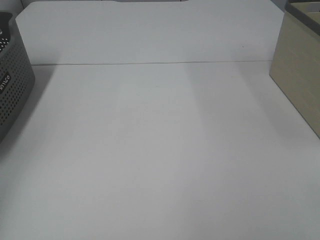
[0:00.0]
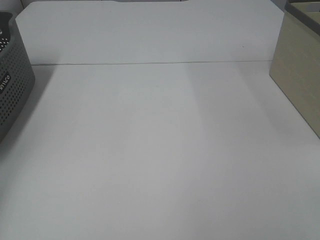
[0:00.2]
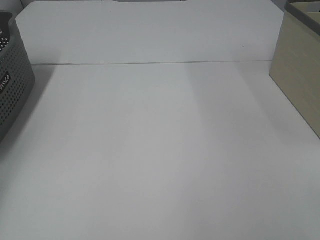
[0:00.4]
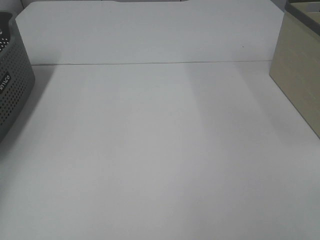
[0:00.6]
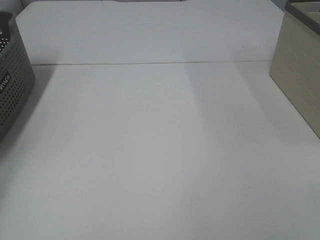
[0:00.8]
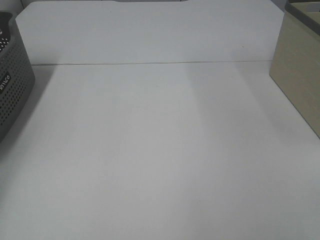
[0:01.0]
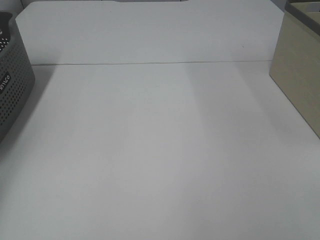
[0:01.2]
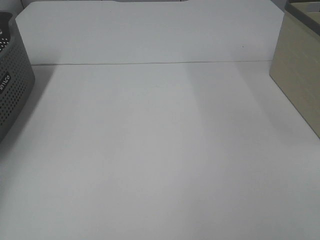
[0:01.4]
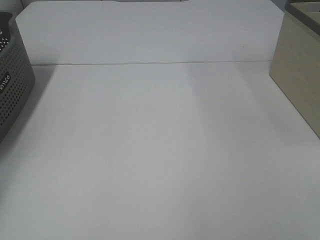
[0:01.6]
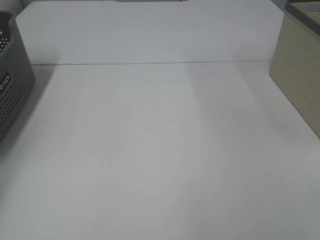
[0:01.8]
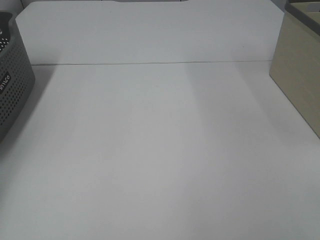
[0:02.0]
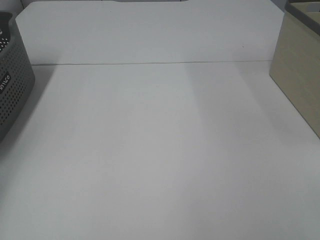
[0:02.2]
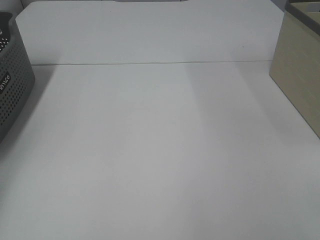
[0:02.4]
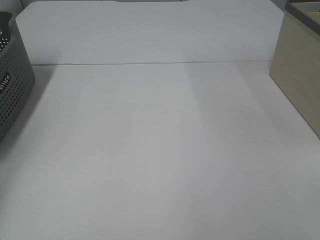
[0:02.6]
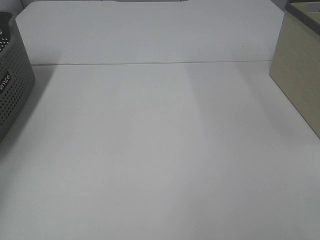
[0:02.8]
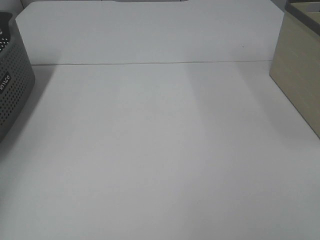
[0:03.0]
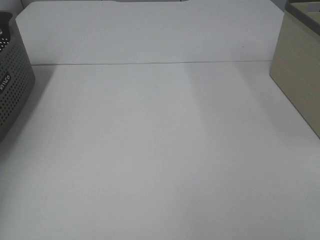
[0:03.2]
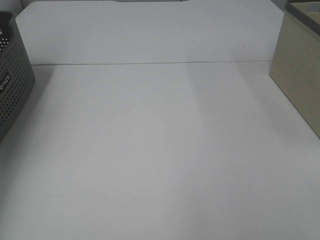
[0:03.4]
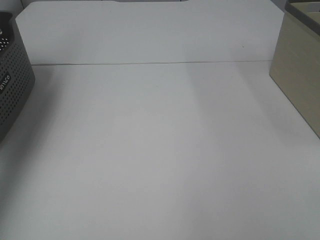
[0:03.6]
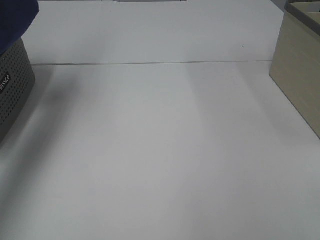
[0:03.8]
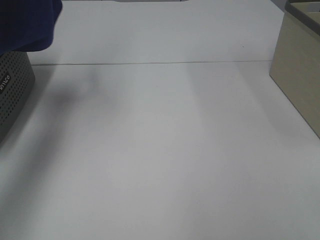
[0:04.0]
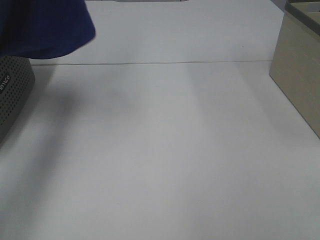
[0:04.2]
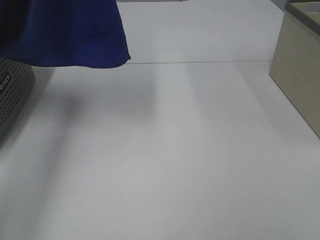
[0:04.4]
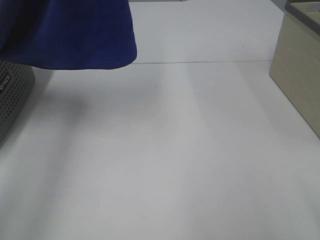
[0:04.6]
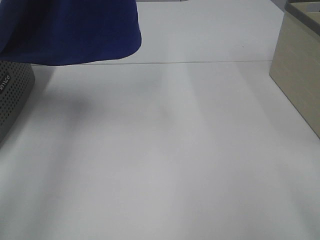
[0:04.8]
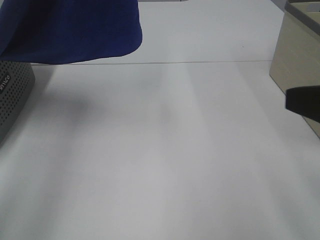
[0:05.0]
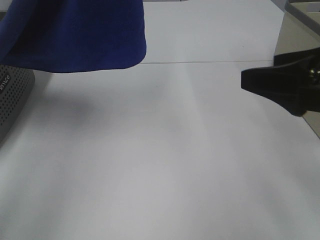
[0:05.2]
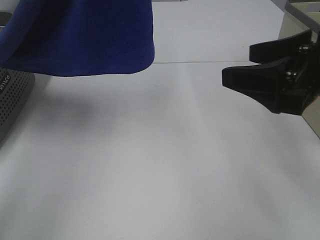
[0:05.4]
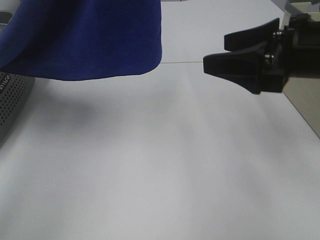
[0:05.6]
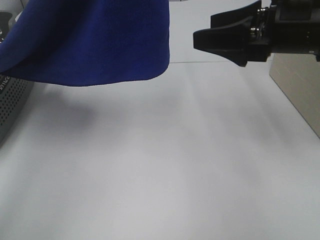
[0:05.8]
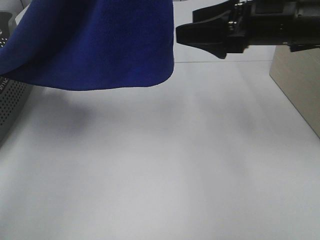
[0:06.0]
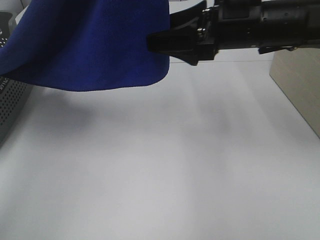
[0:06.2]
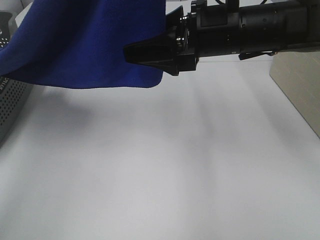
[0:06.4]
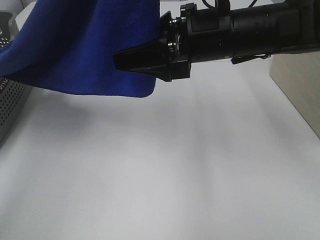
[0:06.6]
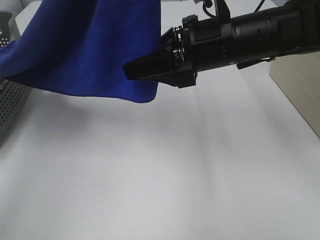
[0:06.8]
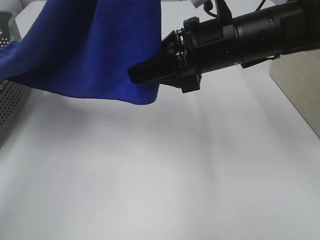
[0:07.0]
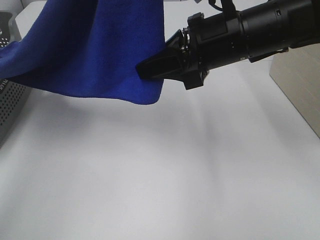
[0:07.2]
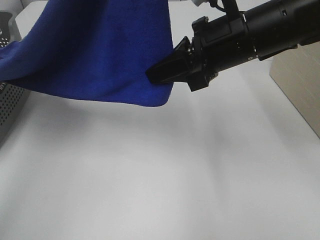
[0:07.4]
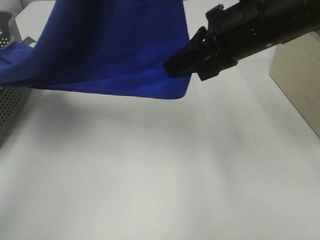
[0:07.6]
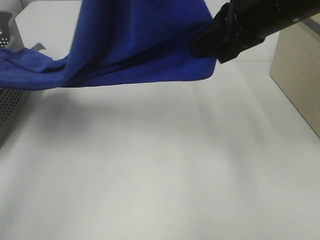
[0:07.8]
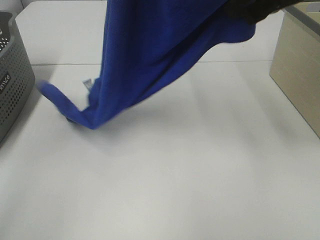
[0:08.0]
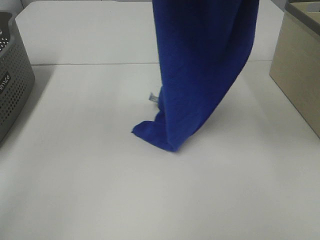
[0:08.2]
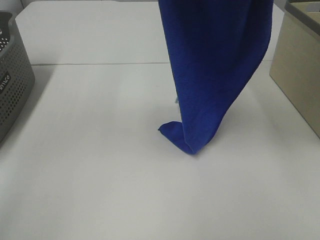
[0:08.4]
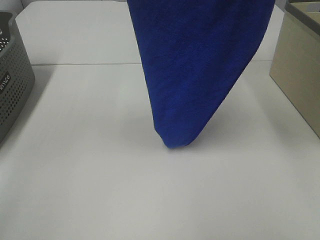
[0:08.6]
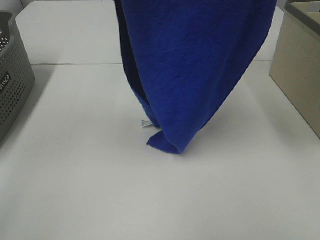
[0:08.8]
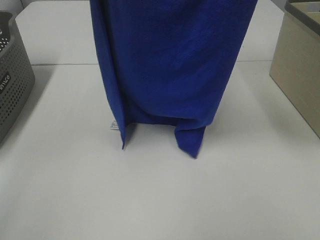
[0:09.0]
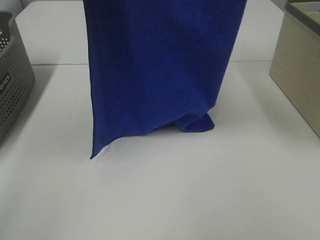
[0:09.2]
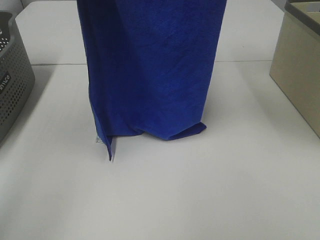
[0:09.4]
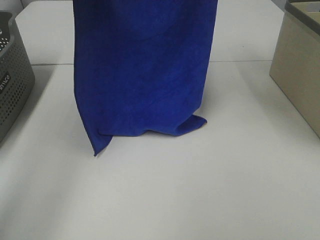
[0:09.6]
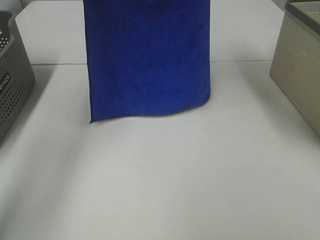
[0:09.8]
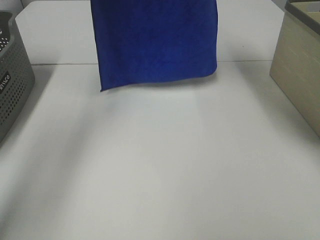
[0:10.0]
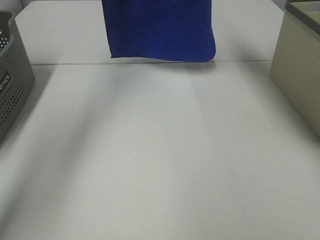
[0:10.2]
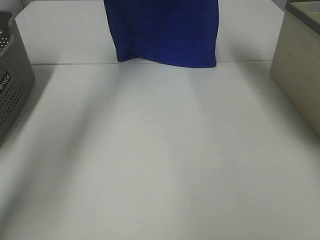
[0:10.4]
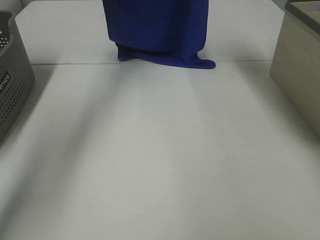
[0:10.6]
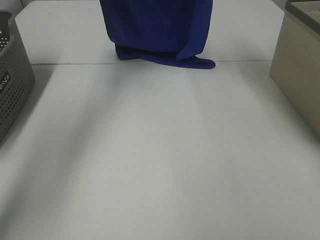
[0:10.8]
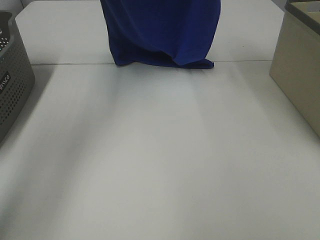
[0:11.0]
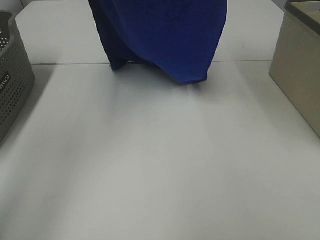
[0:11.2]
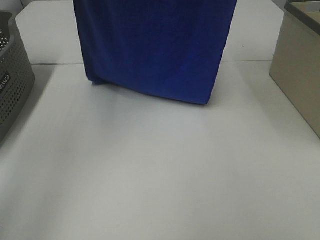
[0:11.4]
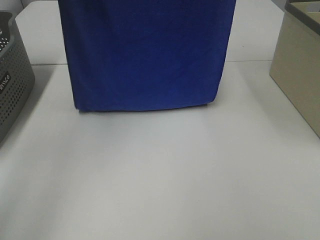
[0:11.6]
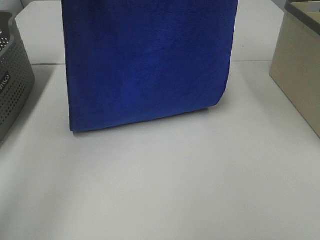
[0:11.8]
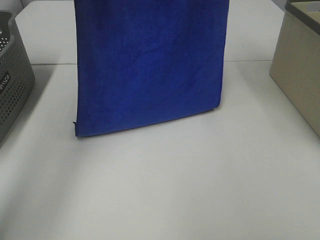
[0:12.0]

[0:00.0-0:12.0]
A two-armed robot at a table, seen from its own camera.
Task of the whole recording: Remove the towel and place it.
Step, 0:02.8 to 0:05.2: Right hand: grab a corner of the blue towel and straighten it.
0:03.0 to 0:04.4: The left gripper shifts approximately 30 cm to the right and upward.
0:04.4 to 0:06.0: The right gripper moves forward, roughly 30 cm, while the left gripper goes roughly 10 cm to the right.
0:06.0 to 0:07.6: The right gripper ends up about 5 cm from where it was, and closes its fingers.
0:07.6 to 0:09.0: The right gripper heads upward, covering approximately 25 cm.
0:09.0 to 0:10.4: The right gripper is displaced forward by roughly 25 cm. Meanwhile the left gripper shifts some 25 cm forward and downward.
0:10.4 to 0:12.0: The grippers both shift backward by some 5 cm.

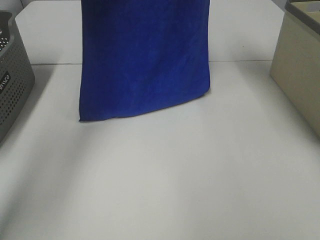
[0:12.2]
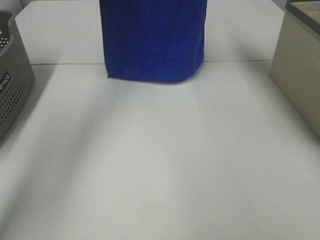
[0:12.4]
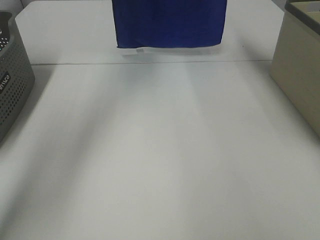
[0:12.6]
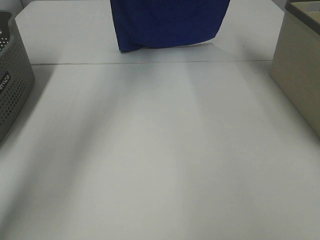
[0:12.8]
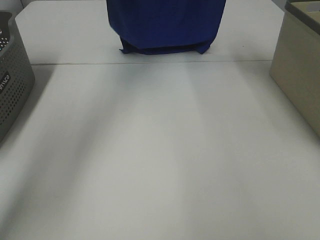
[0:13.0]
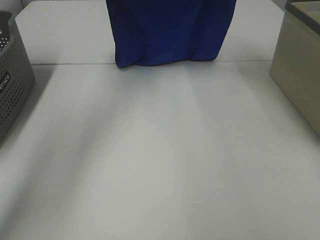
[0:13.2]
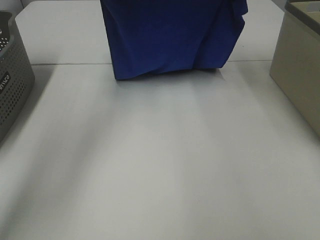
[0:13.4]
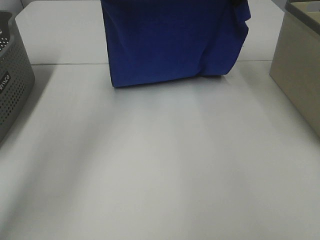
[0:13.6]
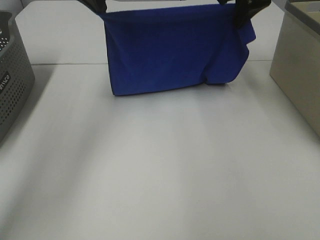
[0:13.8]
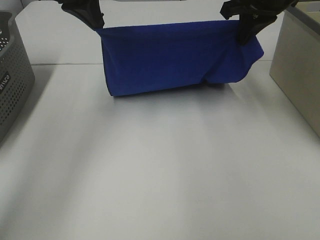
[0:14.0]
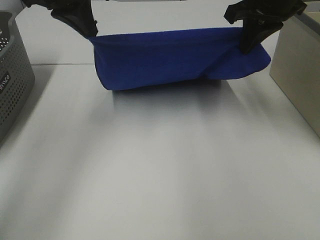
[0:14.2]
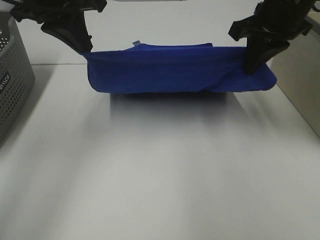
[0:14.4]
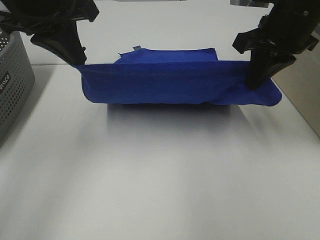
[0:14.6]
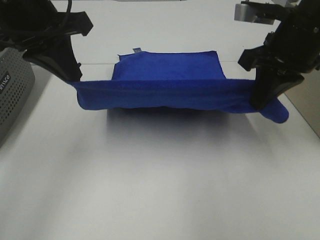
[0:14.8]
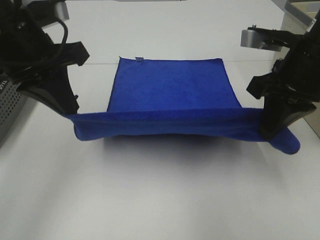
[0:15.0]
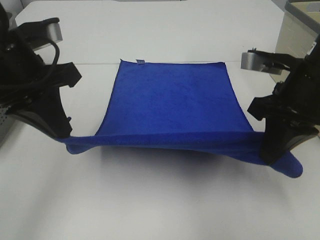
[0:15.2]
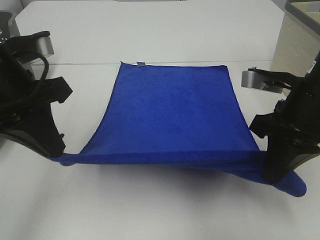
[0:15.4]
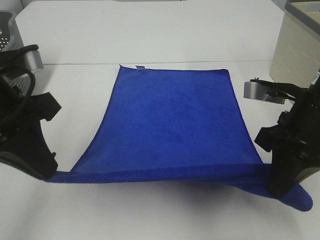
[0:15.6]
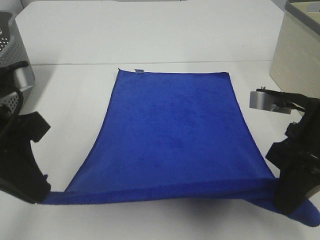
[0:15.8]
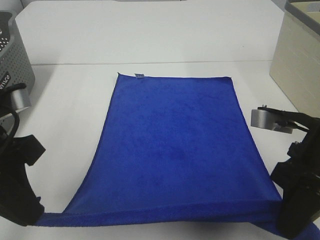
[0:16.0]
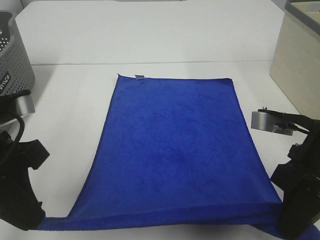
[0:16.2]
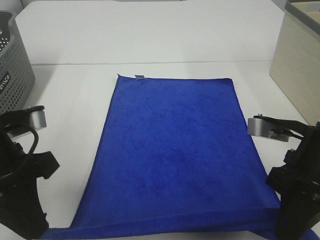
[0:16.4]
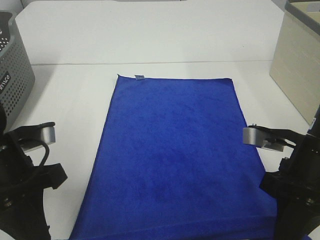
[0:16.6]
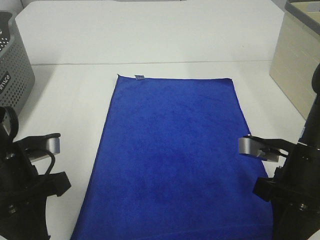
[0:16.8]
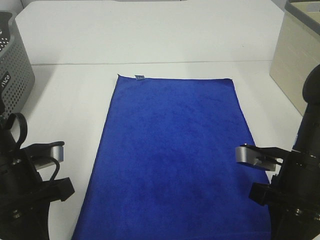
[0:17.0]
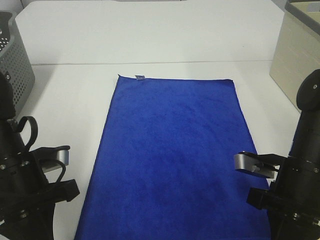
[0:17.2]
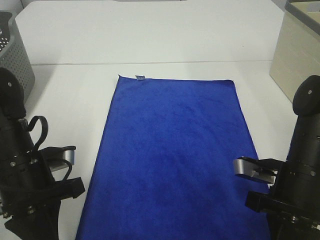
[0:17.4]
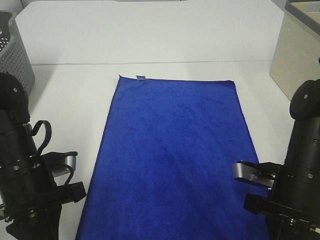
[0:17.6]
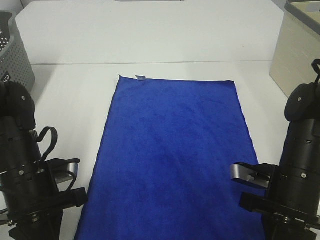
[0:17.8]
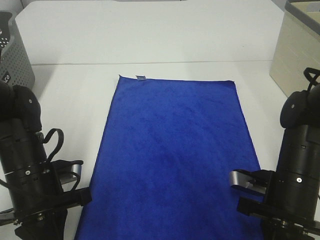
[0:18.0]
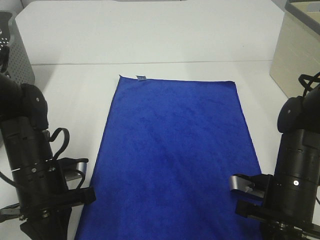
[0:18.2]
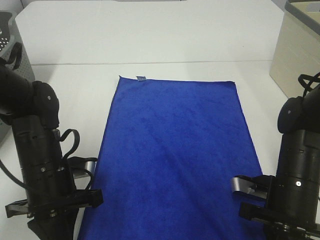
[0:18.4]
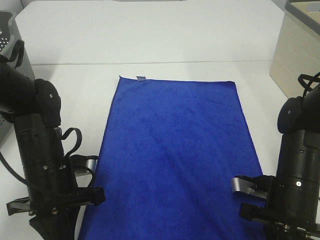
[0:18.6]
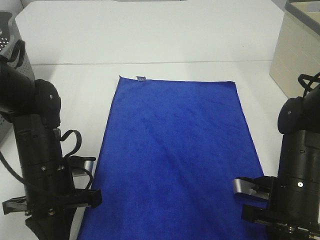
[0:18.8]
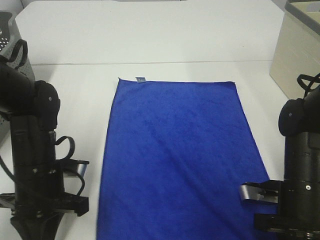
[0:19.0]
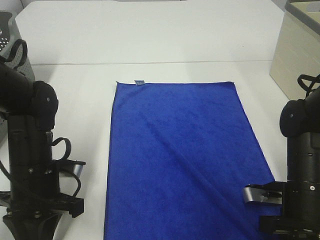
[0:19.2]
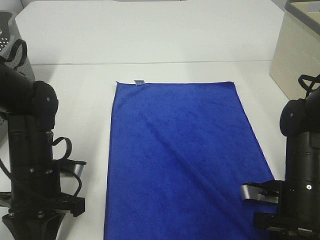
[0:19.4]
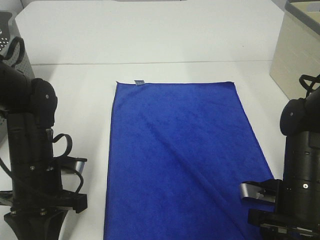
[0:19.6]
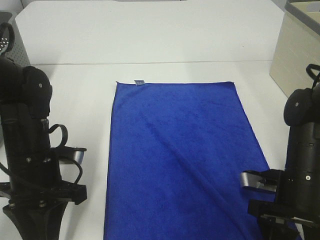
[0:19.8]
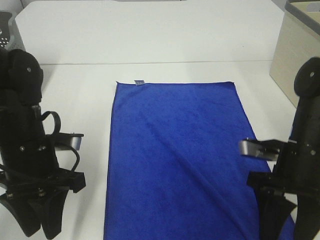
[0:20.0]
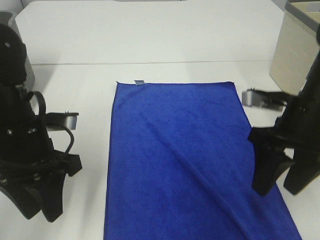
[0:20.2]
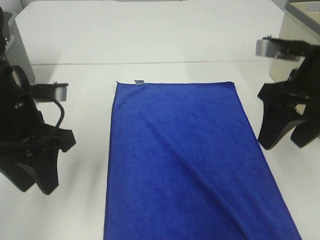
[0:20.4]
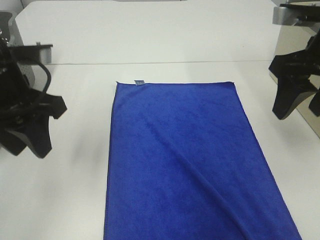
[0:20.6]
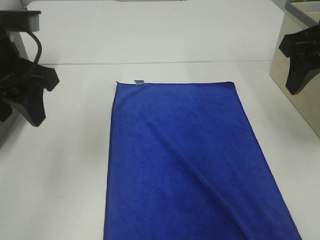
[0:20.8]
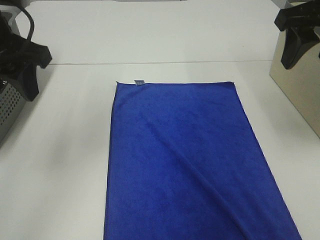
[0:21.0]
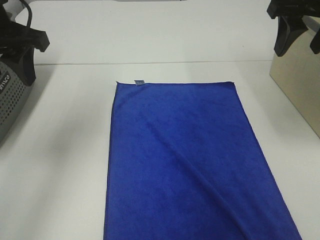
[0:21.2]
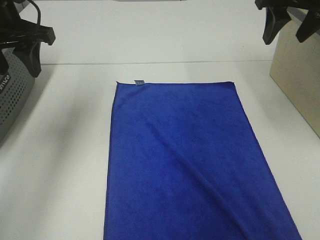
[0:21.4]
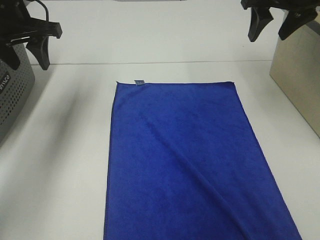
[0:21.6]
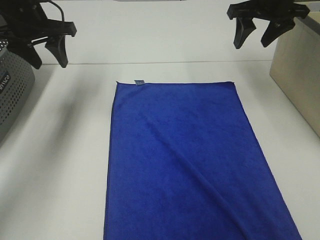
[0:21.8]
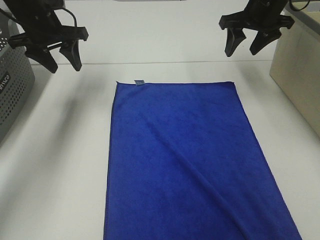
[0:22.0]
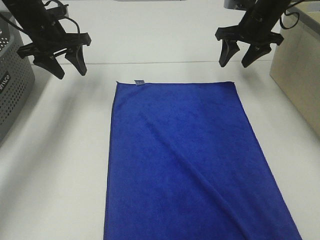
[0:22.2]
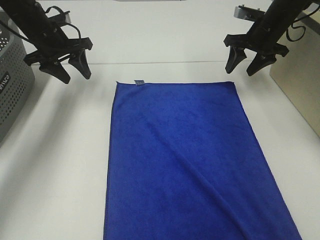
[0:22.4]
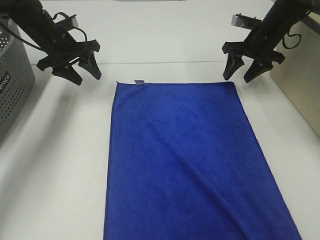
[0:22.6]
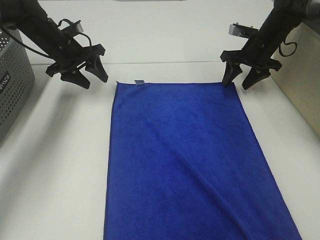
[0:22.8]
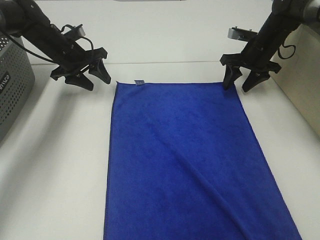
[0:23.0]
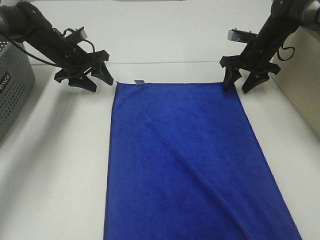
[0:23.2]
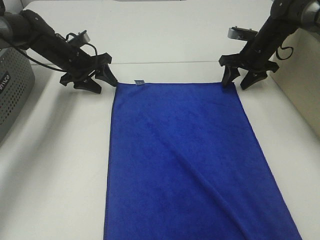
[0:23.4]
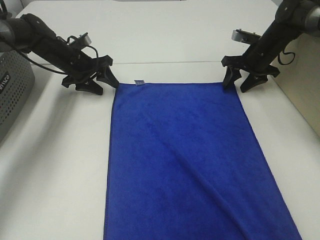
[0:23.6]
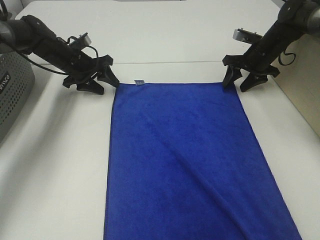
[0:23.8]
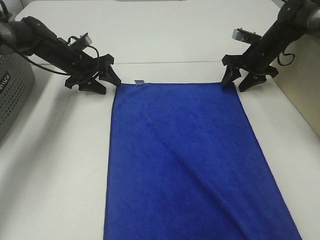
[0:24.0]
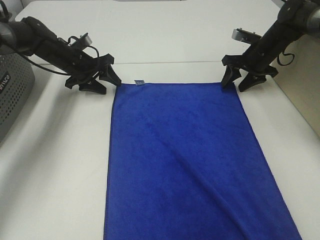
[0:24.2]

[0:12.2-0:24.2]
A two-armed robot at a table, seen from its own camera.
Task of the whole recording: Remove the towel and place it.
Step, 0:13.8 to 0:22.2: Left hand:adjust the blue towel.
Step, 0:13.8 to 0:22.2: Right hand:adjust the blue towel.
0:12.2 to 0:13.8: Both grippers travel together downward, roughly 10 cm.
0:13.8 to 0:15.2: The left gripper moves backward, approximately 20 cm, while the right gripper shifts some 20 cm backward and downward.
0:15.2 to 0:16.6: Both grippers move downward and backward, roughly 10 cm.
0:16.6 to 0:18.2: The grippers both shift downward by roughly 10 cm.
0:18.2 to 0:19.8: The right gripper opens.
0:19.8 to 0:21.2: The grippers both shift upward and forward by roughly 25 cm.
0:21.2 to 0:22.6: The right gripper heads downward and forward, covering approximately 25 cm, while the left gripper goes about 25 cm forward and downward.
0:22.6 to 0:24.2: The left gripper travels downward by some 5 cm. The right gripper ends up roughly 5 cm from where it was.
